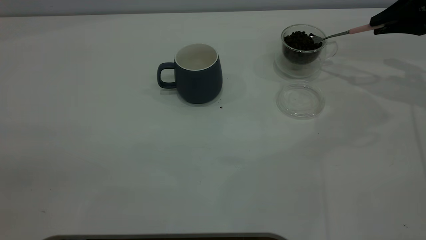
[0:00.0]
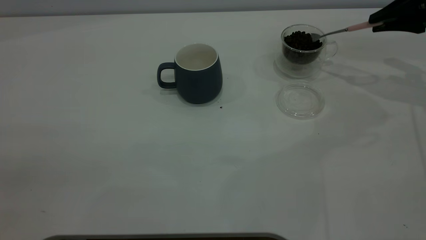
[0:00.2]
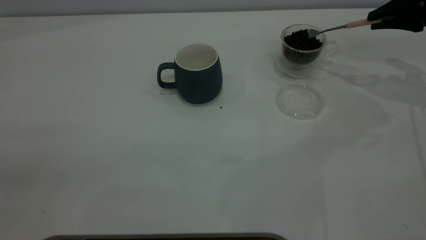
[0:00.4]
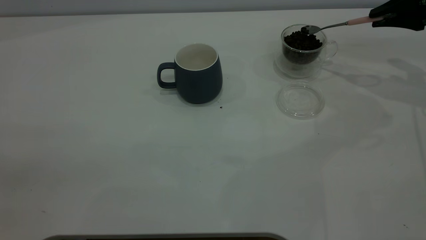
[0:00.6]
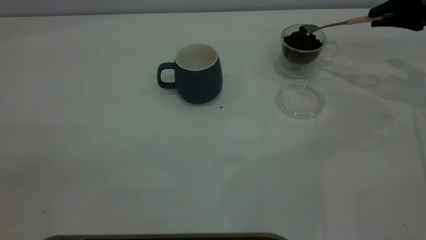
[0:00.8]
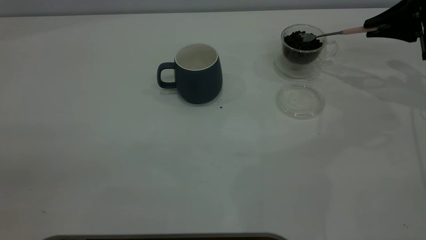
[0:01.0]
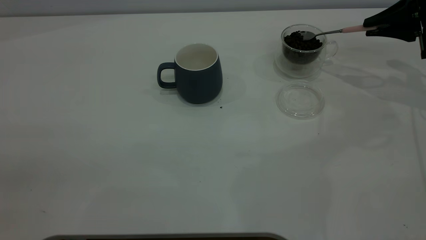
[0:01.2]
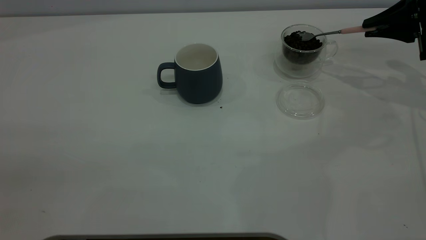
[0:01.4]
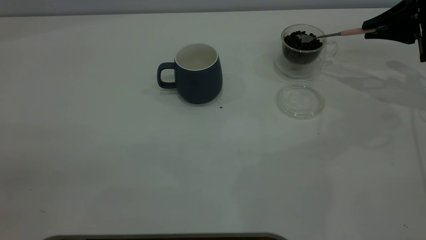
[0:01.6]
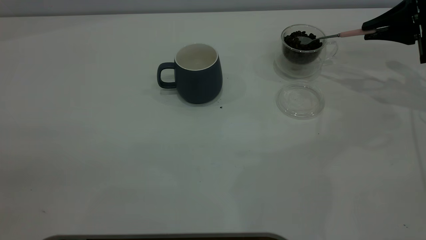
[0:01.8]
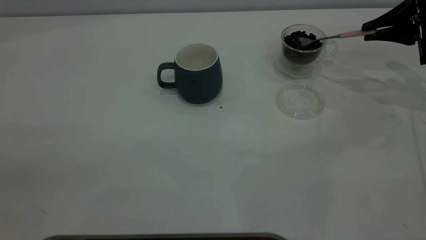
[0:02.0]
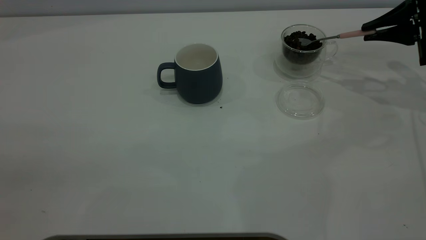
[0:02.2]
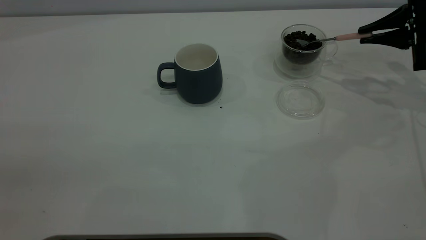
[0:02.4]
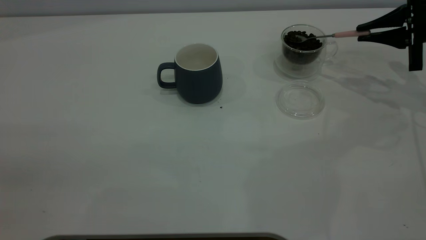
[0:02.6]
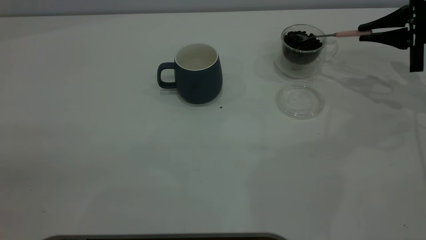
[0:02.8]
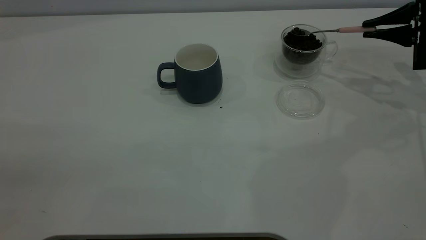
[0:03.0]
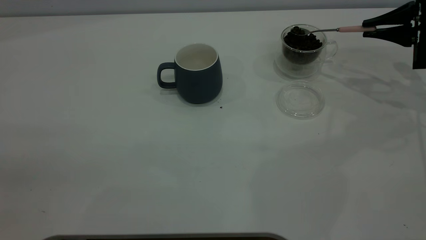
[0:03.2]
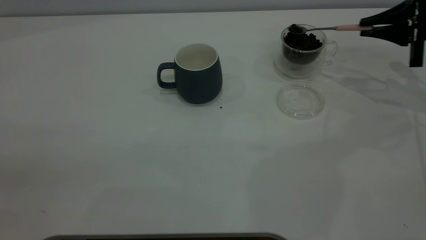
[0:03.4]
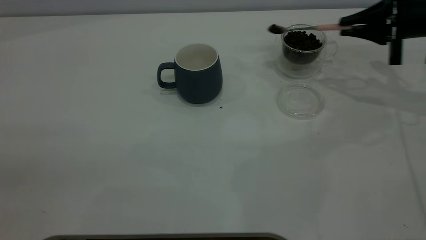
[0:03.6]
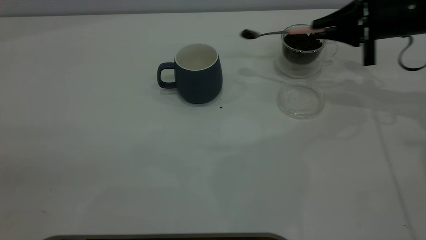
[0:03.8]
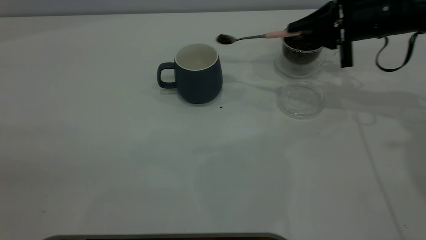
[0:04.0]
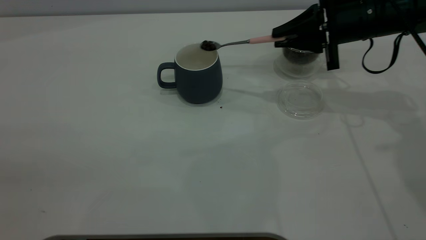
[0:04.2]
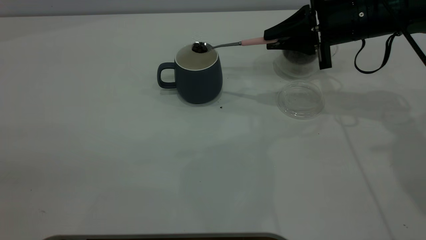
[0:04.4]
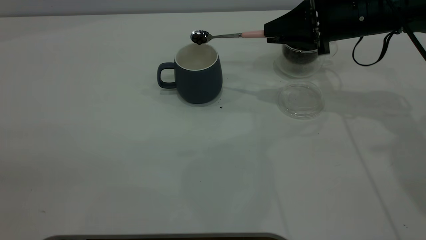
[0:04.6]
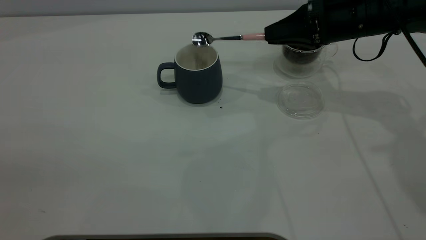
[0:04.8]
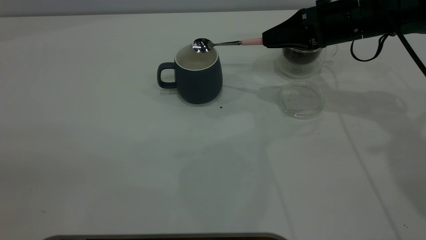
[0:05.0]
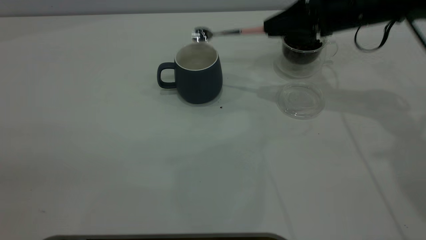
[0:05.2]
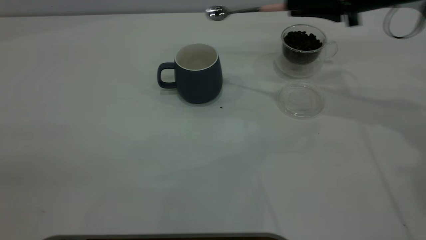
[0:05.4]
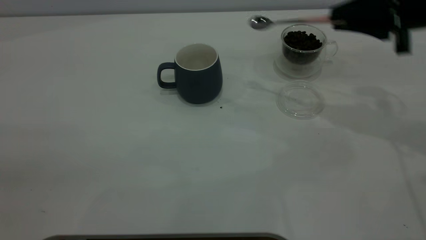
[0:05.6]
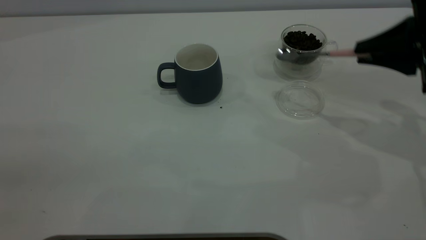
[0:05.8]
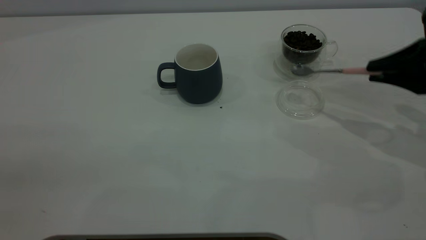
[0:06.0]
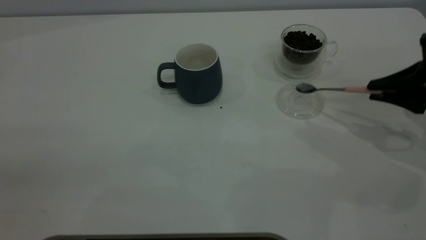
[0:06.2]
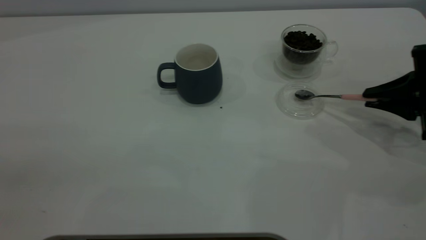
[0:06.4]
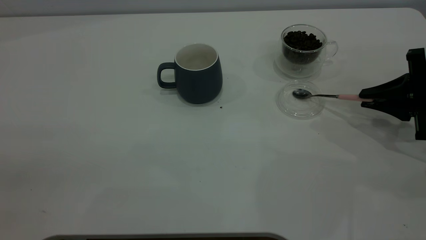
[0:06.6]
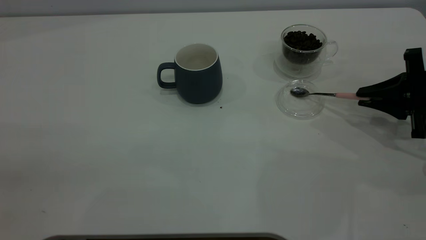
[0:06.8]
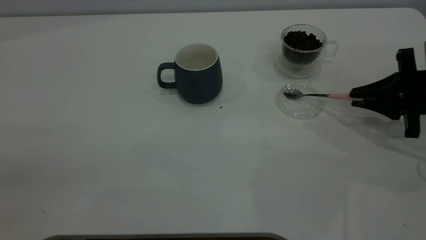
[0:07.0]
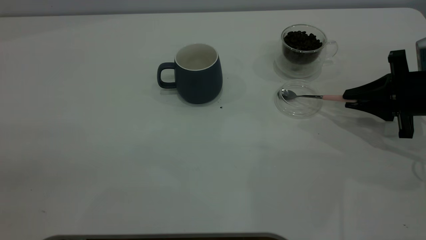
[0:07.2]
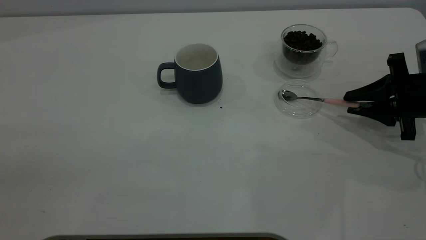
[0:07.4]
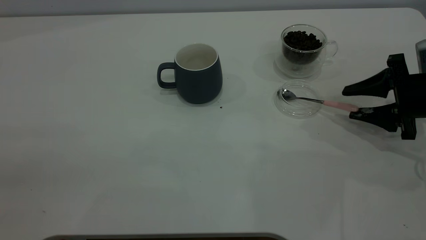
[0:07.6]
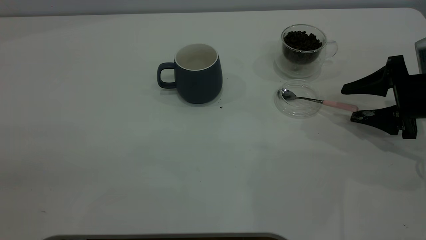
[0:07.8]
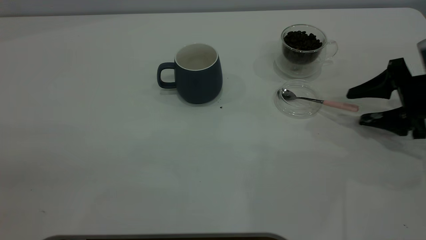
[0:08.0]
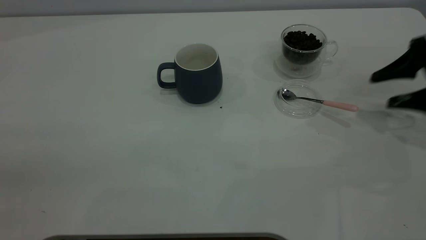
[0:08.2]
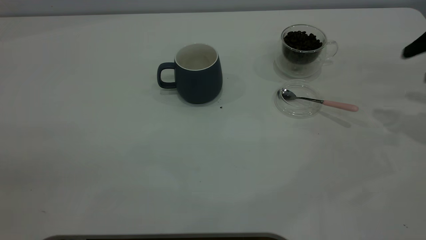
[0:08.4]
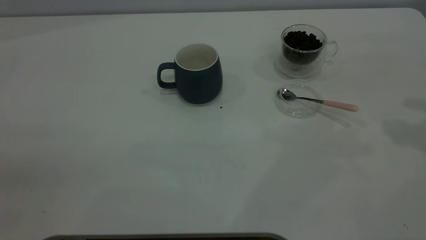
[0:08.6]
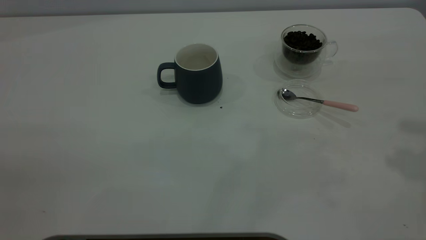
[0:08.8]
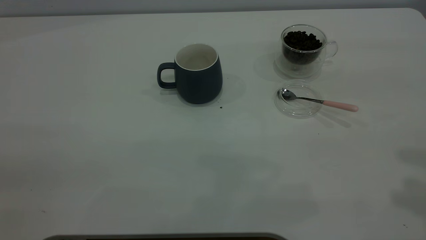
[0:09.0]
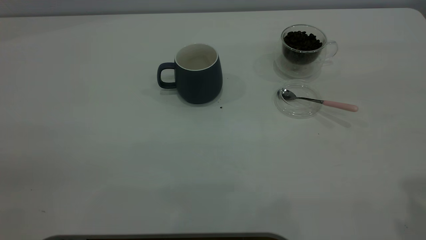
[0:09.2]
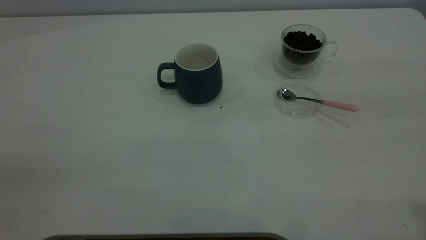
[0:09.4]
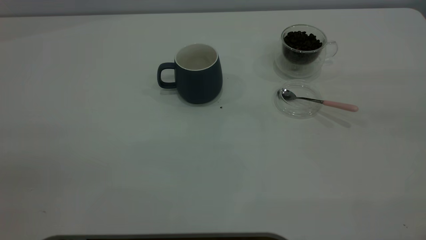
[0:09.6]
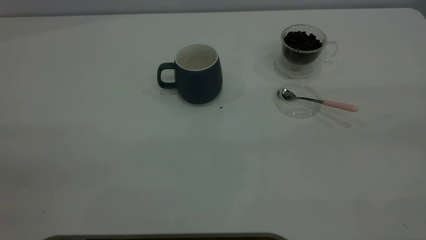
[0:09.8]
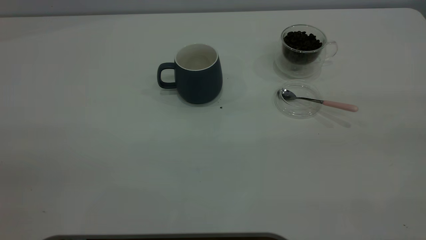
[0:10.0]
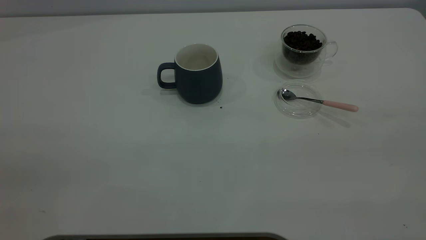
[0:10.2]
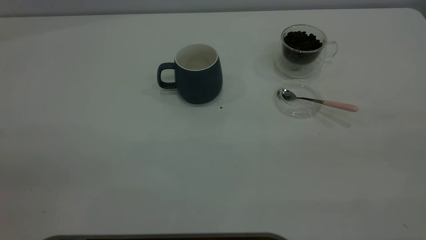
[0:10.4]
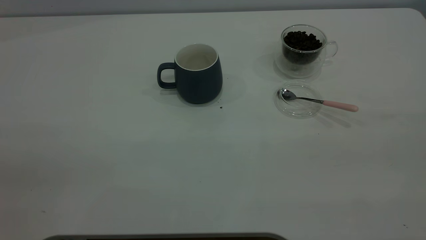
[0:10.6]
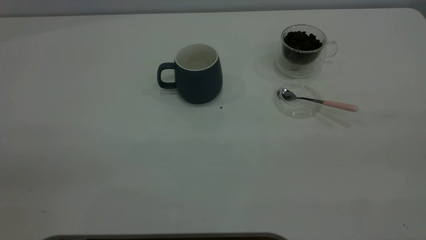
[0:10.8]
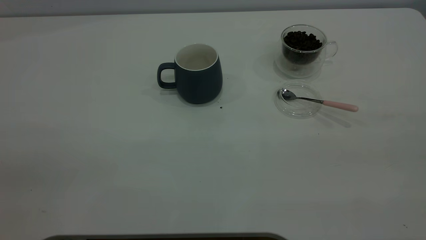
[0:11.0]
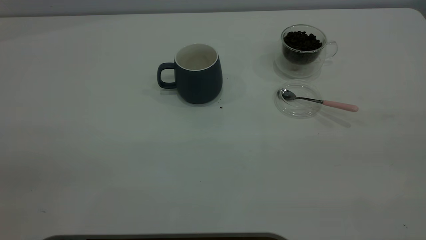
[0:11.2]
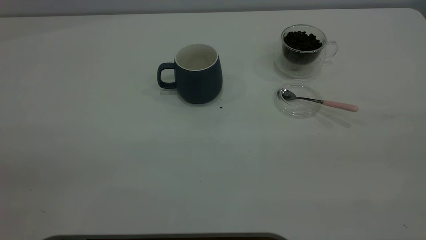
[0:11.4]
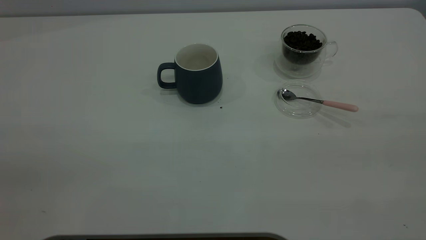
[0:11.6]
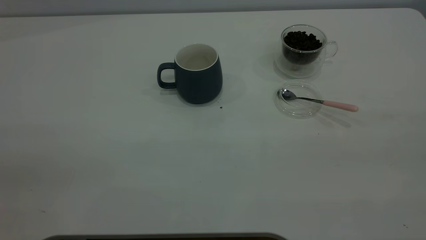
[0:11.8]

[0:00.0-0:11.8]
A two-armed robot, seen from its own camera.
Task of the whole recording: the left gripper place the grey cup in the center of the table, the right gripper take the pink spoon from the cup lid and scoop out the coffee beans from the coffee cup and put them into the grey cup, the right gripper put the spoon back into the cup lid.
Step, 0:00.0 to 0:05.2: Scoop a spoonful of beans into the cup.
Step, 0:05.4 to 0:08.0: Place the spoon back in its original place.
0:00.0 to 0:01.4: There are only small adjustments of the grippers.
0:01.4 to 0:03.0: The grippers move only a little.
0:03.0 to 0:04.4: The right gripper travels to the left by roughly 15 cm.
0:04.4 to 0:06.0: The right gripper shifts some 15 cm to the right and backward.
0:06.0 to 0:07.4: The right gripper heads downward, covering about 5 cm, and opens its fingers.
0:07.4 to 0:08.8: The right gripper travels upward by roughly 30 cm, and opens.
0:10.4 to 0:11.8: Both grippers stay put.

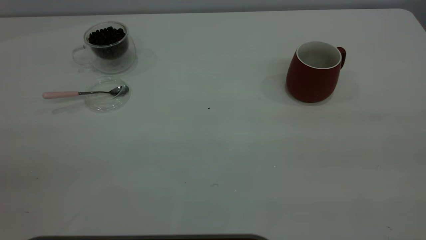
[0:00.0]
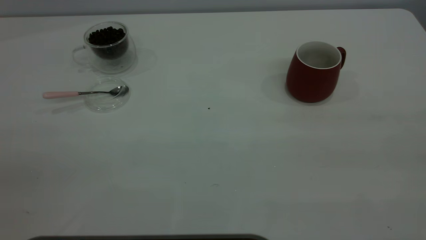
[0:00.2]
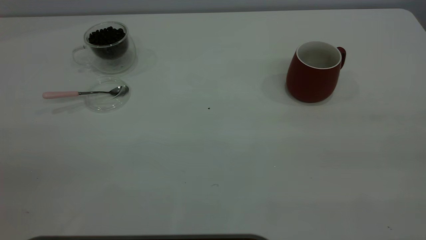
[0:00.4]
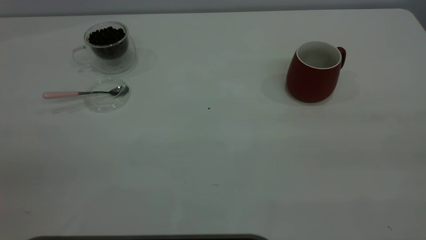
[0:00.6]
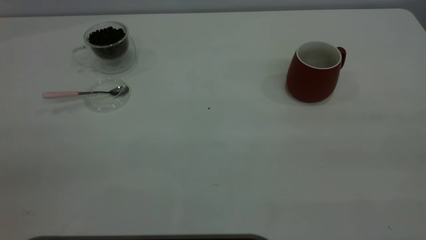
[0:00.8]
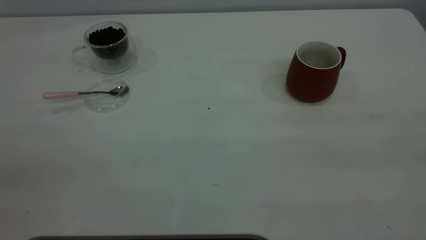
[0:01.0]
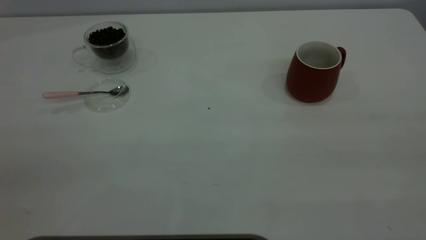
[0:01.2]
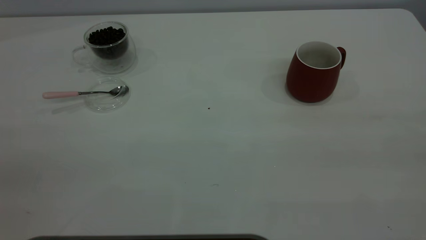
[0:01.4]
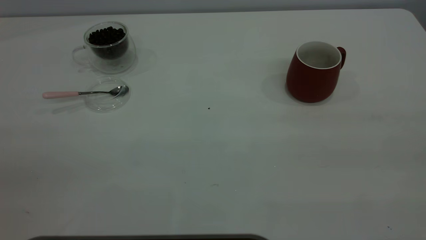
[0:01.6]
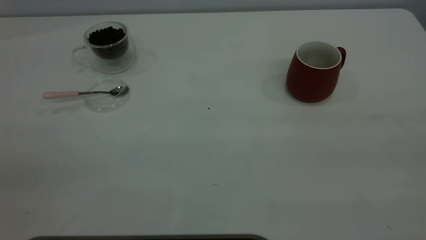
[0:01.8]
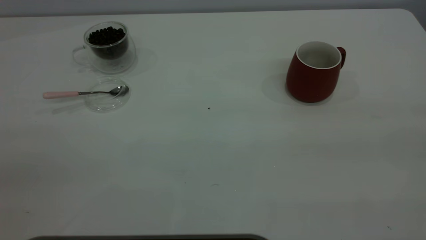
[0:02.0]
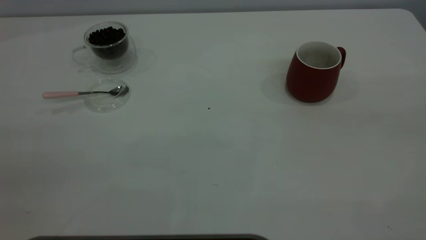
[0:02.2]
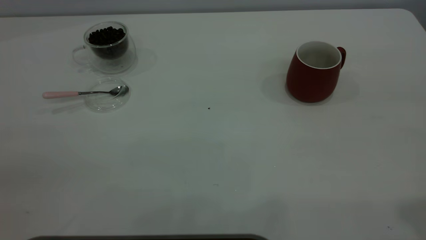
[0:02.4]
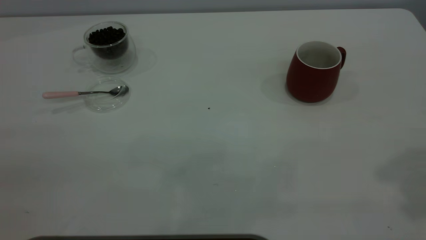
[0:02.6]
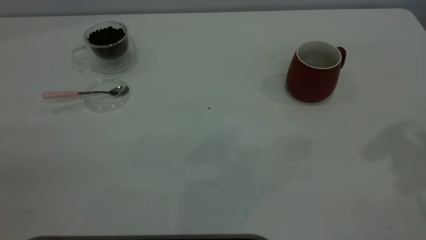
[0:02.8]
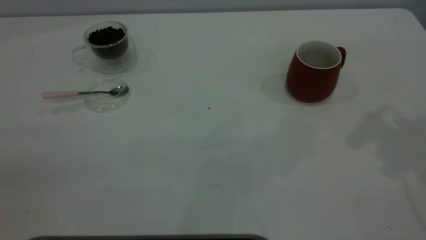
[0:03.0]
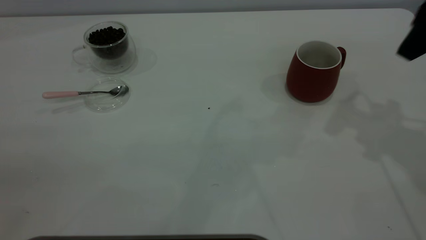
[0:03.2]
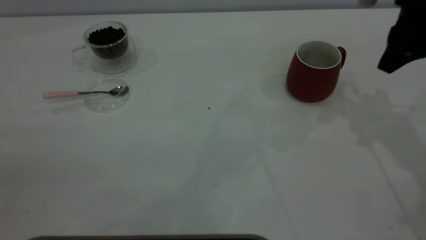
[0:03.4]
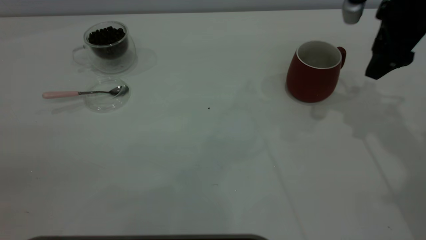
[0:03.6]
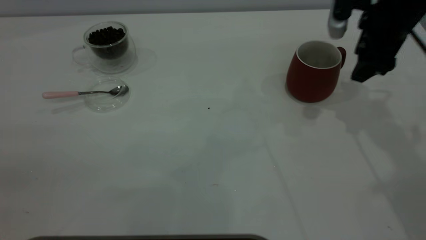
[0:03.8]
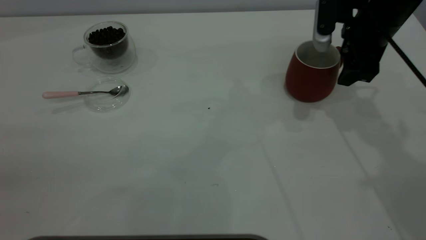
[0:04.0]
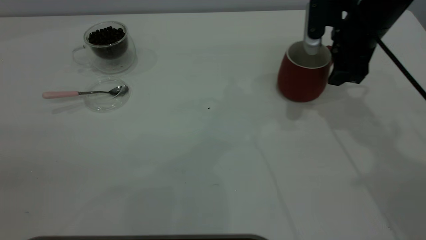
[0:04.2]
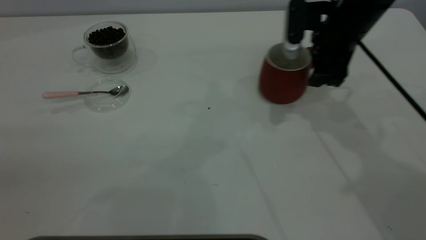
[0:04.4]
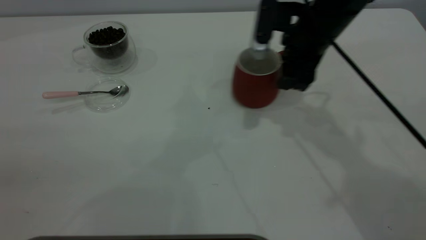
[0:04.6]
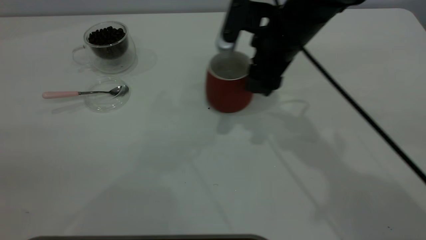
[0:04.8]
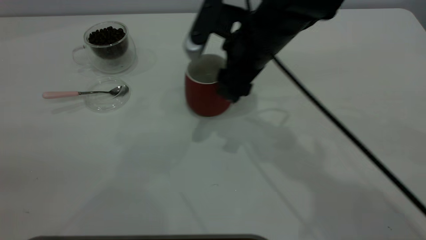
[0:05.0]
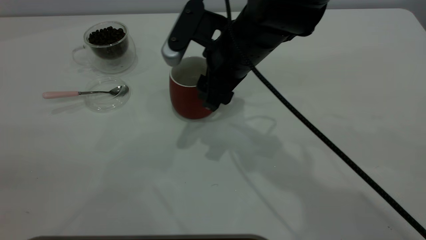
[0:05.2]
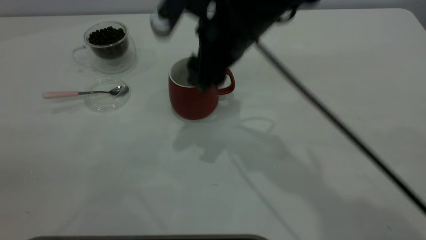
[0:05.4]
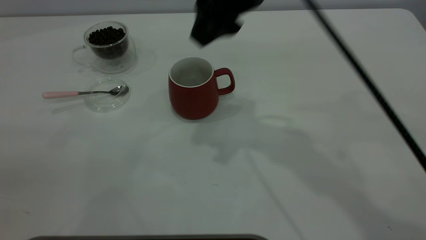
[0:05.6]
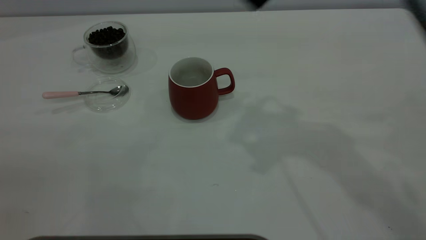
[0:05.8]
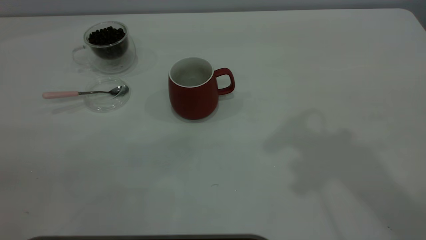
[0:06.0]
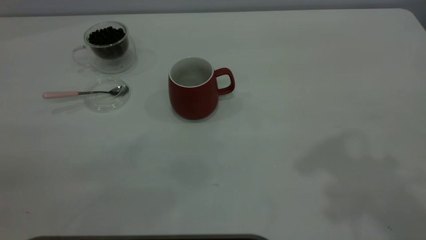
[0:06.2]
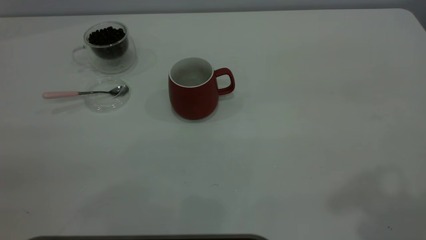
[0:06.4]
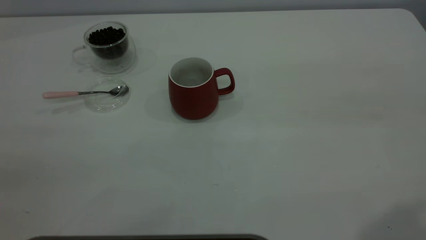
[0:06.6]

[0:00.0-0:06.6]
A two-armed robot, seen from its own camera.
Task of the whole recording: the right gripper place the red cup in the center of the table, the left gripper take the pink spoon from the cup lid and scoop out the coffee beans from the coffee cup and put them into the red cup, the left gripper put the spoon back into the cup lid.
Step, 0:00.0 to 0:05.4: Move the cup to the center of view.
0:00.0 to 0:01.6: The two grippers keep their place.
0:01.6 to 0:03.2: The right gripper is displaced forward by about 35 cm, and opens.
0:03.2 to 0:05.0: The right gripper heads to the left and downward, covering approximately 25 cm, and closes up.
0:05.0 to 0:06.6: The right gripper goes about 40 cm upward, backward and to the right.
